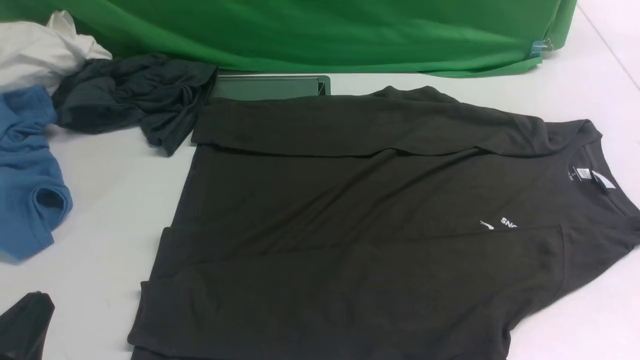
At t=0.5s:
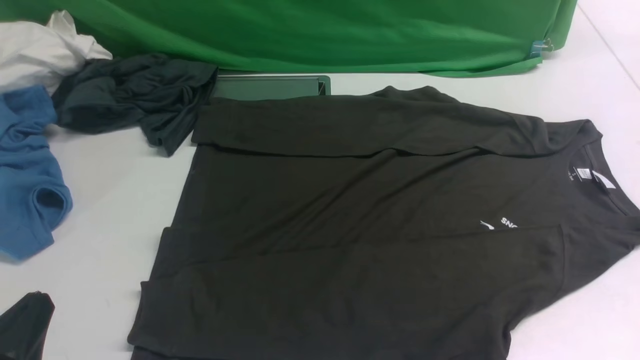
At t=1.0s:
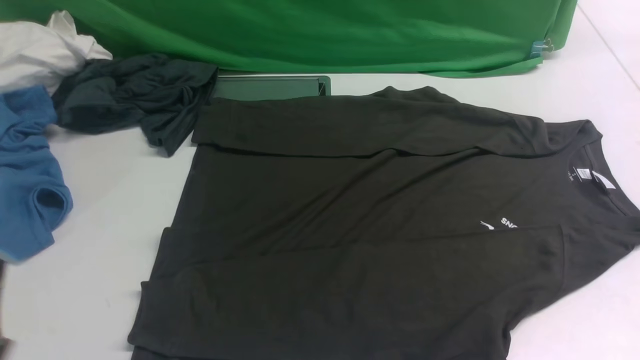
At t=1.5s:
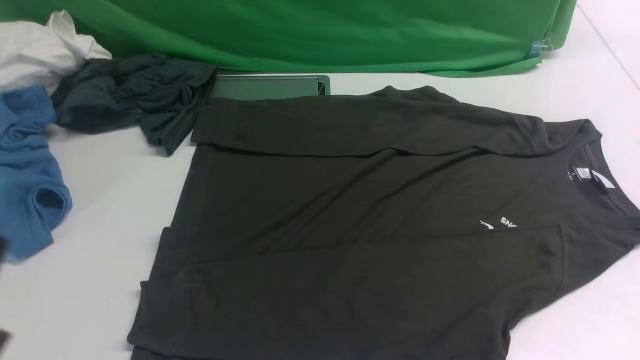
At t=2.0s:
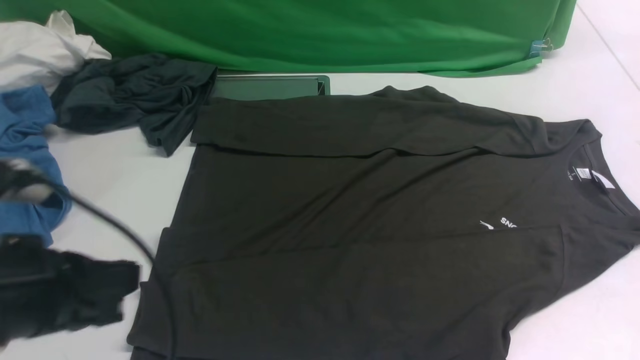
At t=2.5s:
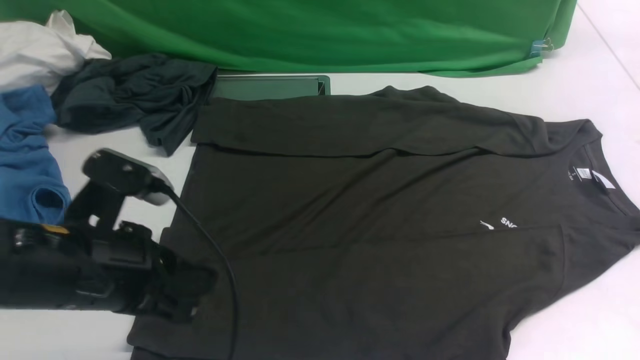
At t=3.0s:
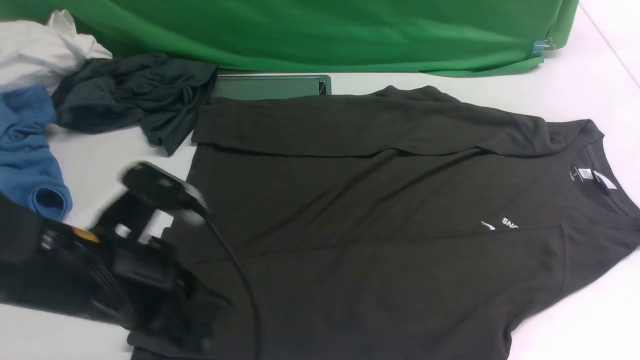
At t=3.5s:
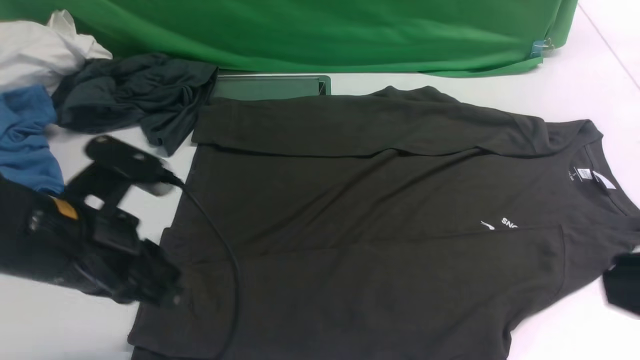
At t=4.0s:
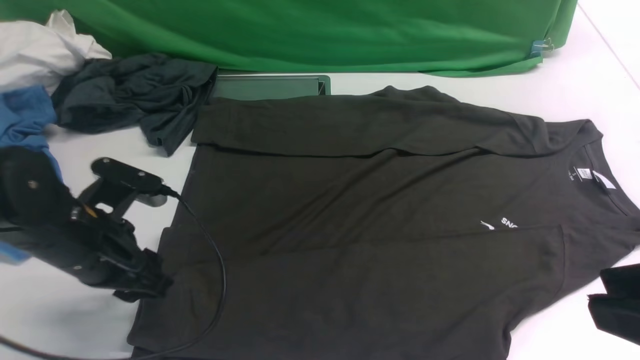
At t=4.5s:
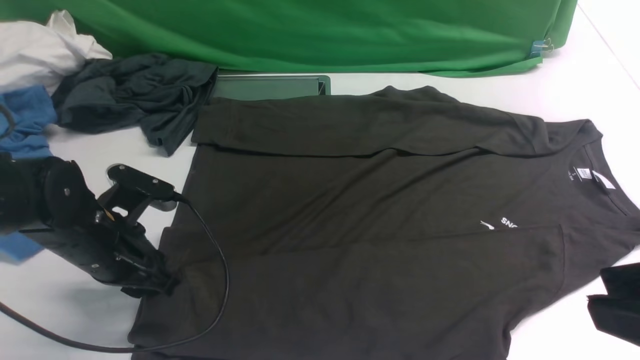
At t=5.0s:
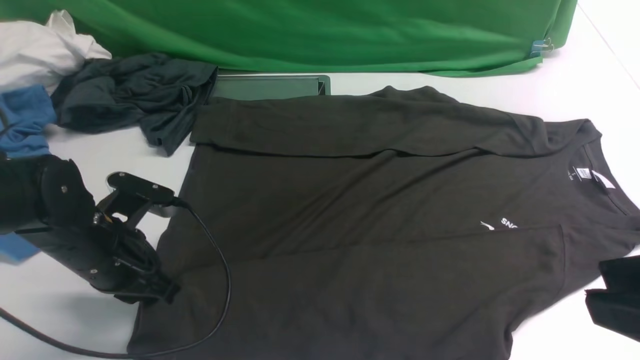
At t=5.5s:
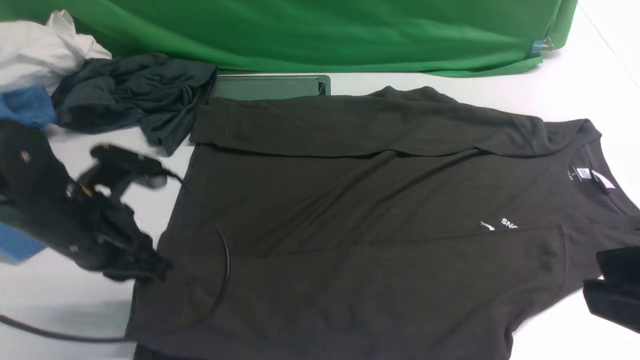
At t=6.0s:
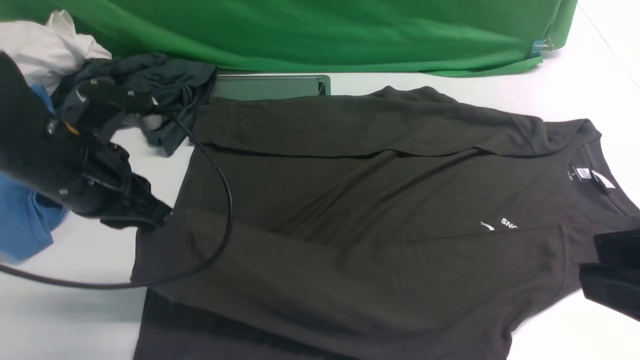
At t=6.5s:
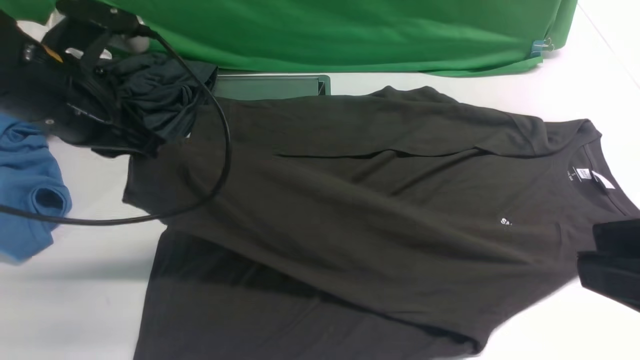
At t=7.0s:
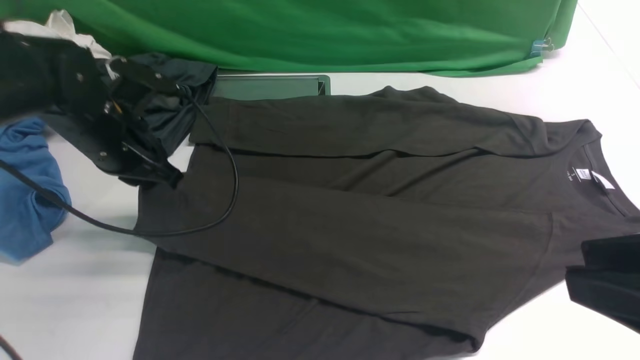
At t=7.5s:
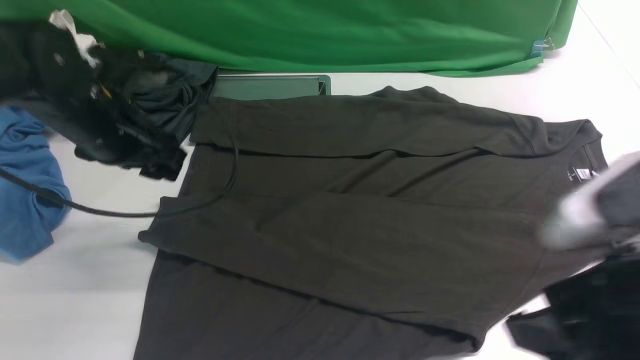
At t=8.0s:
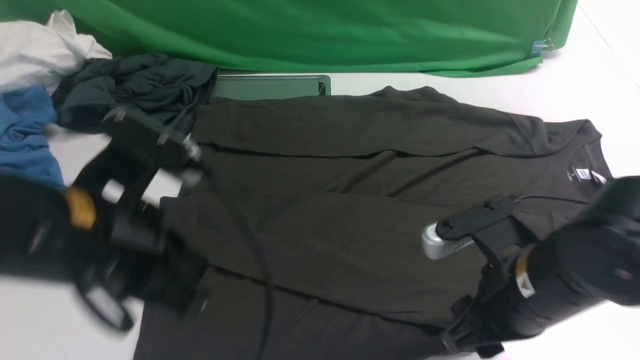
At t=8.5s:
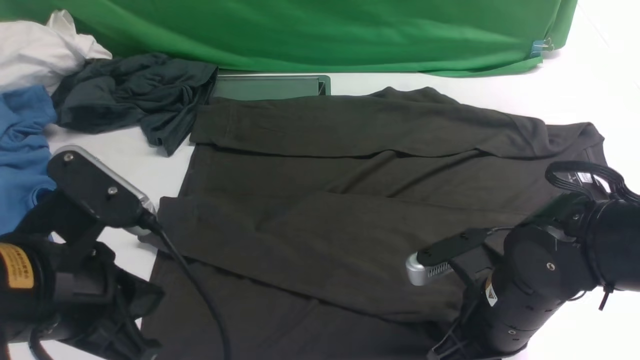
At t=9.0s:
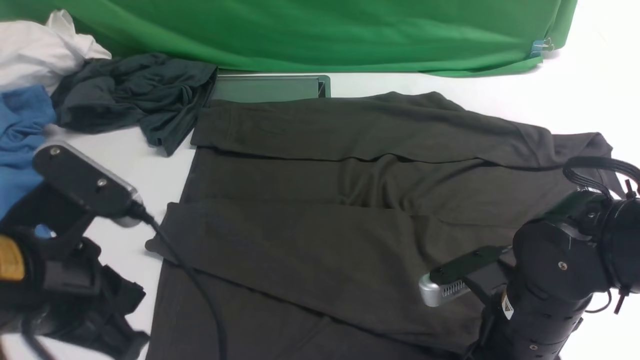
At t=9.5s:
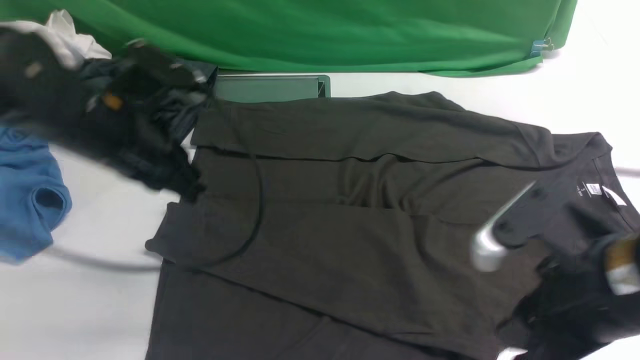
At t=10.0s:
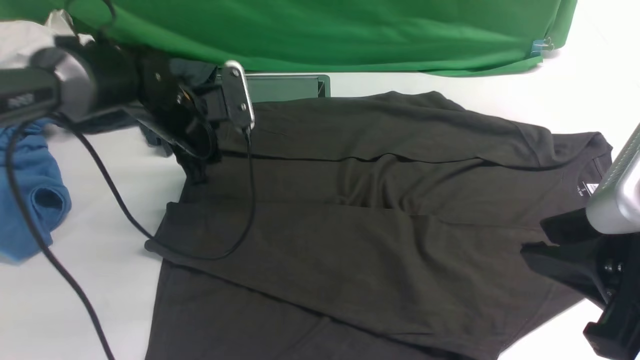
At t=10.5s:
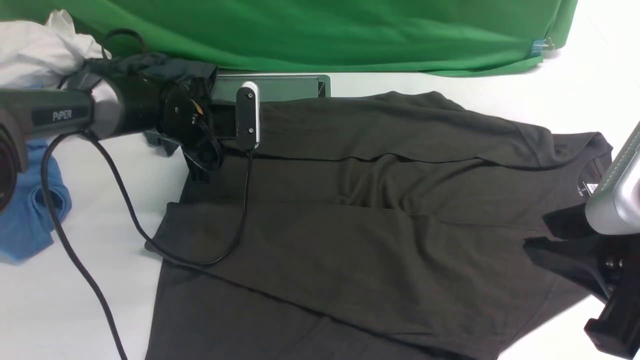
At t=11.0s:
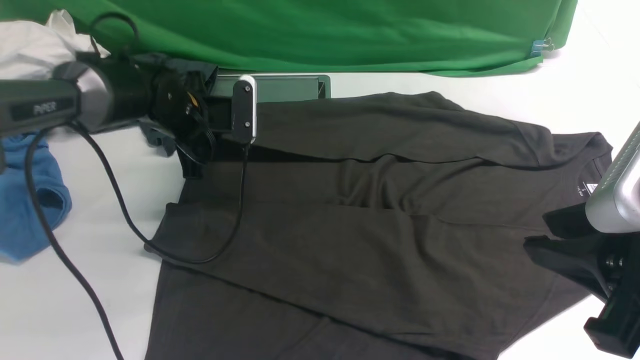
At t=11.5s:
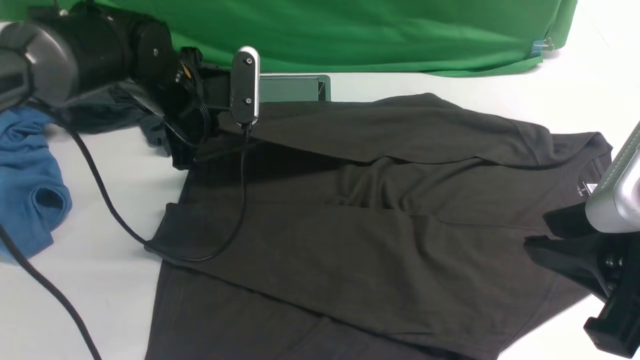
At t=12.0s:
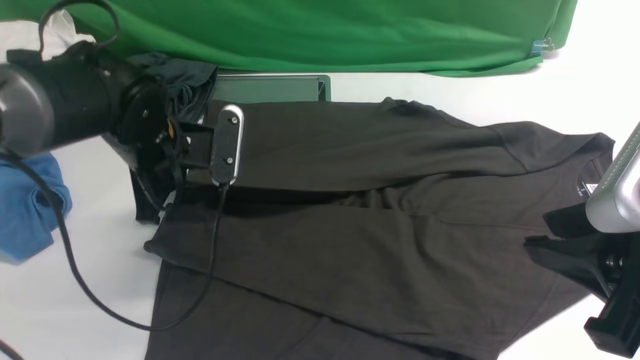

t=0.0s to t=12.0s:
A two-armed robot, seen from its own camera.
Step, t=0.0s to t=5.0s: use the left arm to clamp the cuff closest to it.
Step, t=5.5s to t=7.5s: use the left arm to drag and place the cuff at the centered position on the left edge of the fabric.
Step, t=8.0s to t=11.0s: use the left arm to clamp the cuff farthest from it.
t=0.0s to t=2.0s: The left gripper moves upward and forward, roughly 10 cm.
t=2.0s to t=4.0s: The left gripper goes approximately 15 cm forward and downward, and opens its fingers. Meanwhile the right gripper goes roughly 20 cm upward and to the left.
t=4.0s to t=6.0s: The left gripper shifts some 10 cm upward, and closes its fingers.
t=6.0s to t=8.0s: The right gripper goes some 20 cm downward, forward and to the left, while the left gripper is displaced backward and to the right by roughly 10 cm, and opens, then closes once more.
t=8.0s to t=10.0s: The left gripper moves forward and downward, some 25 cm, and opens. Meanwhile the right gripper goes about 15 cm upward, backward and to the right.
t=10.0s to t=12.0s: The left gripper shifts about 10 cm backward, and closes.

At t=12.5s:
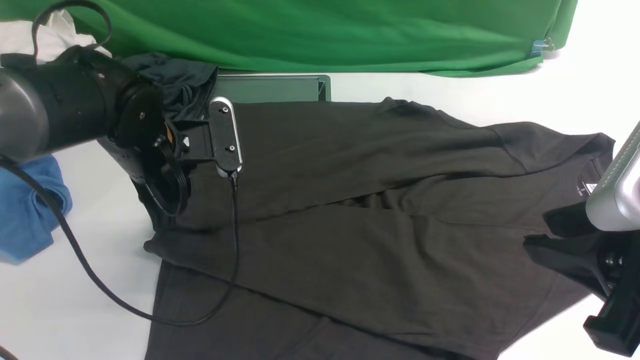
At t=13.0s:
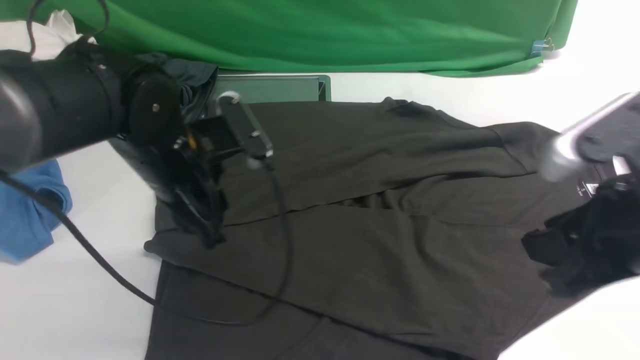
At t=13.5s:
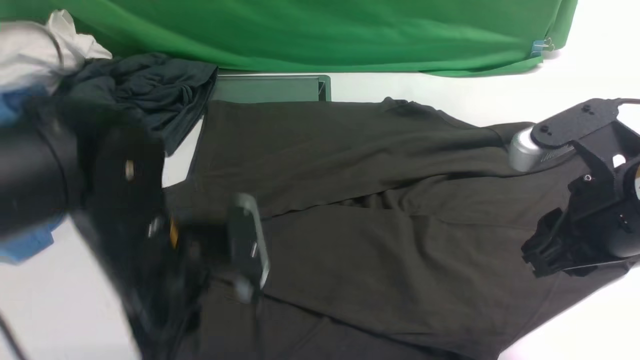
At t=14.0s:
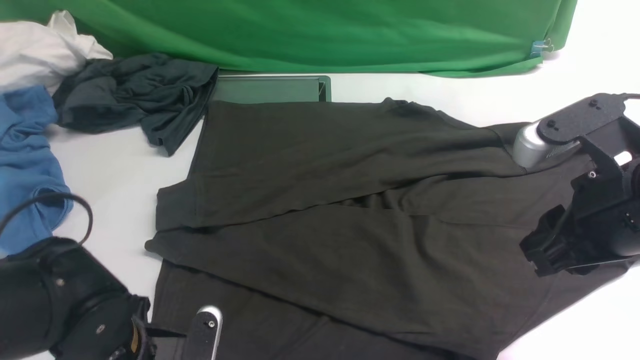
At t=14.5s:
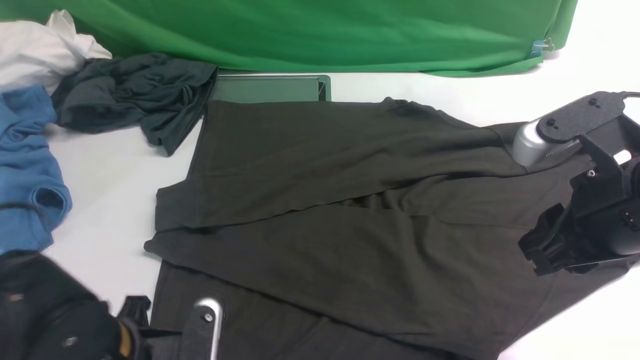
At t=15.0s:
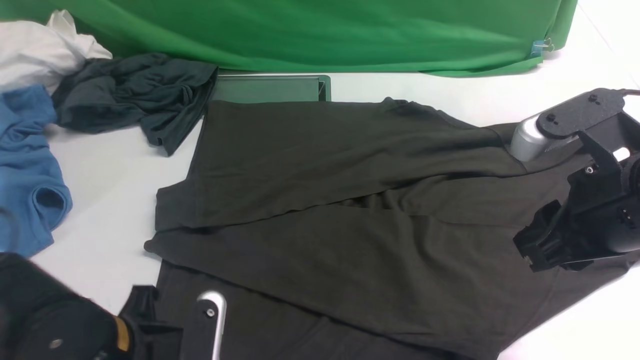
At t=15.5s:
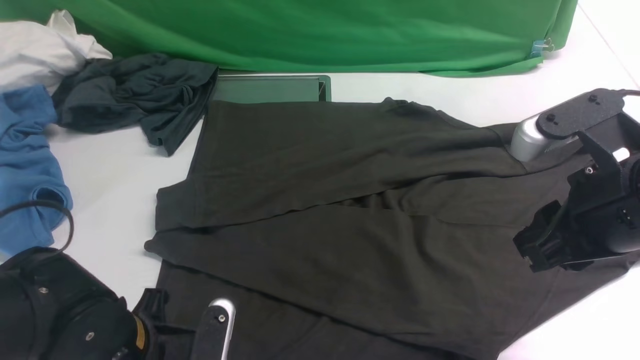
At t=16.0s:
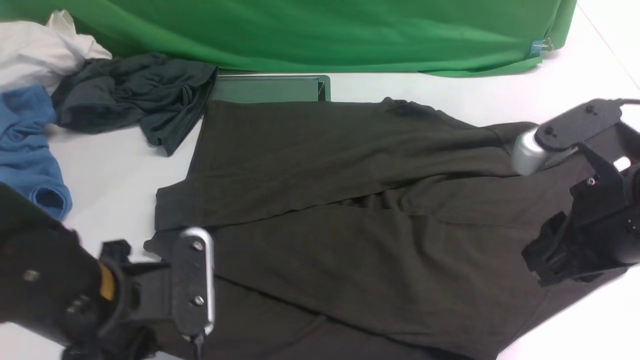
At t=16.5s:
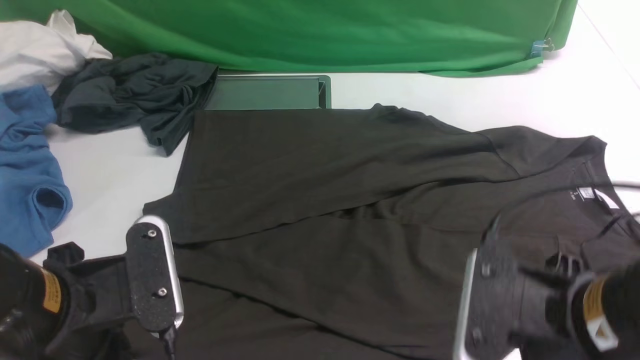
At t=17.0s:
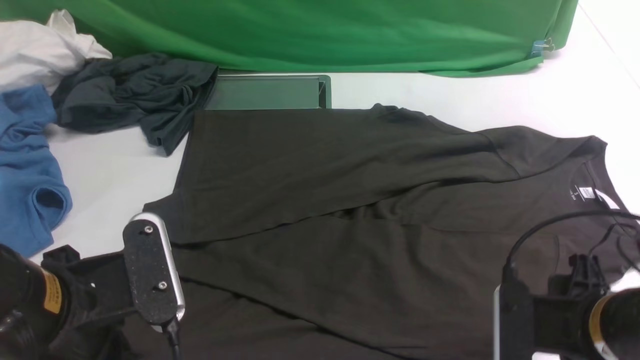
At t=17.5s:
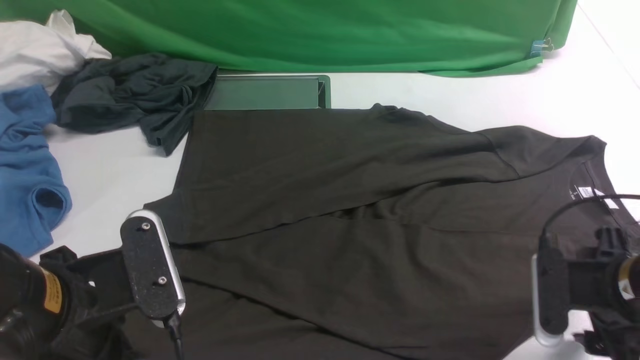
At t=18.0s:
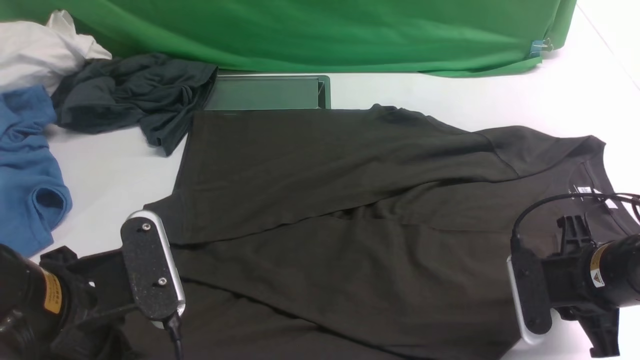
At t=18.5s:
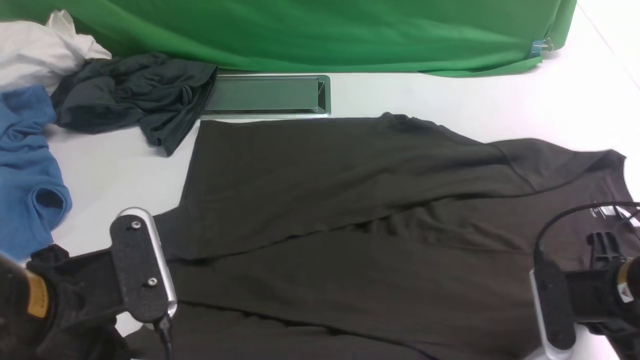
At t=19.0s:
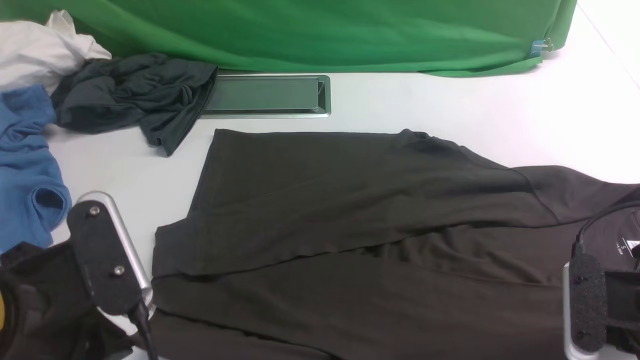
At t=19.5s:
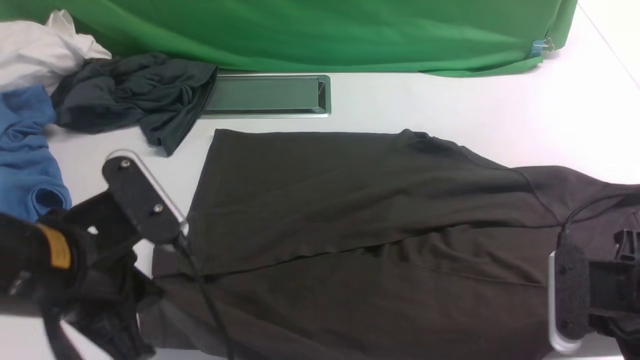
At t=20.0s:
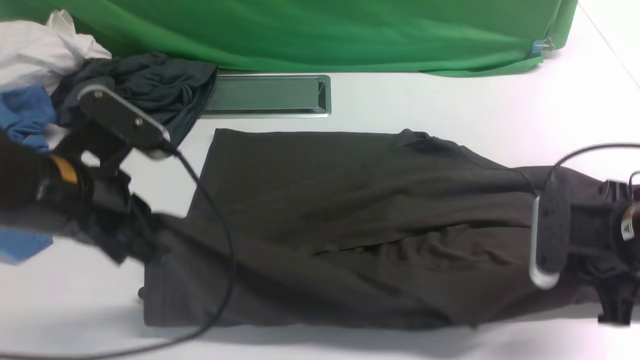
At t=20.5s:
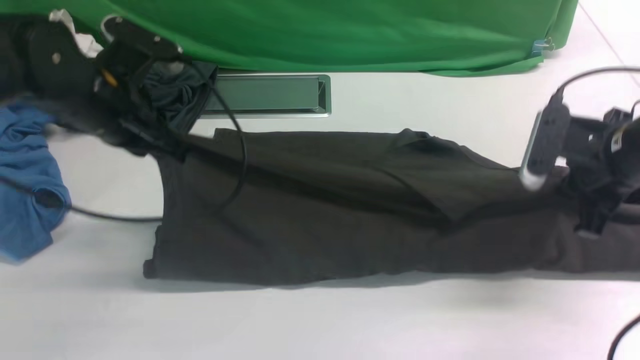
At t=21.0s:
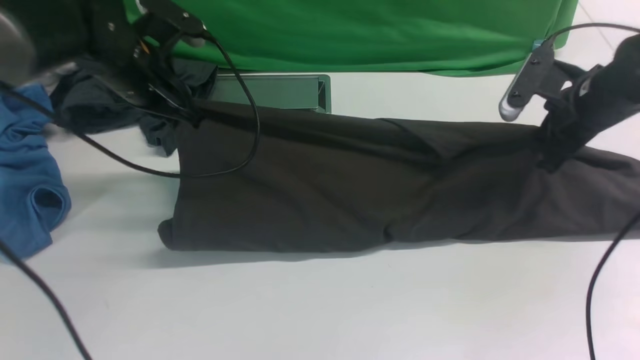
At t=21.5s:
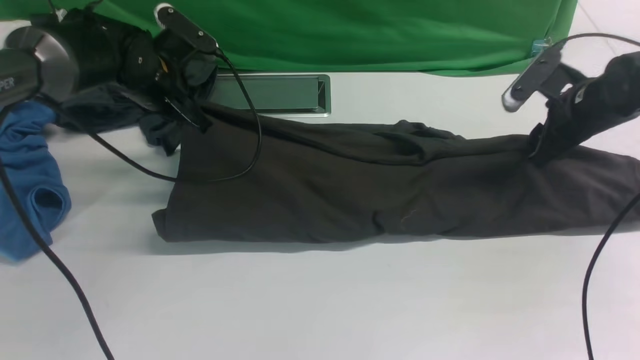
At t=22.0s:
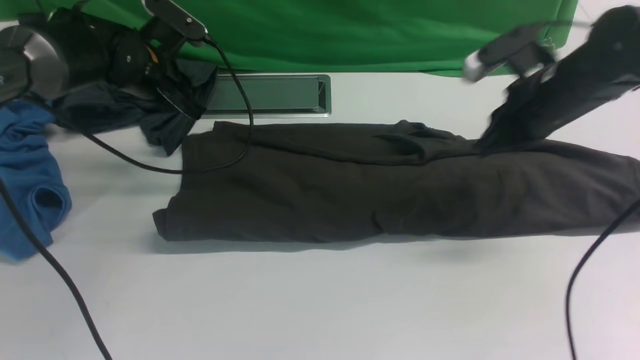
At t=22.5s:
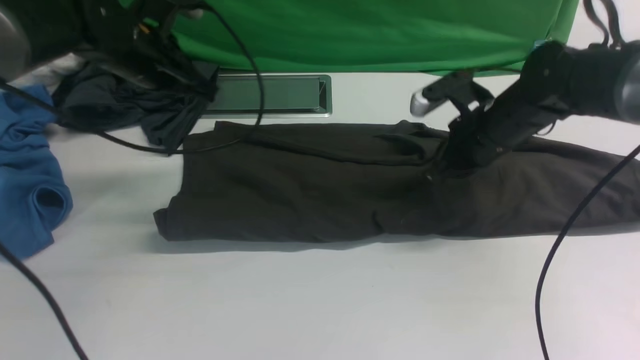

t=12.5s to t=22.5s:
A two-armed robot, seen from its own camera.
Step, t=13.5s to t=18.5s: use both arms simultaneously to clamp the lower edge of the clothing fabric.
t=12.5s to t=14.5s: The right gripper travels forward by roughly 5 cm, while the left gripper is displaced backward by some 20 cm.
t=14.5s to t=16.5s: The right gripper is displaced backward by approximately 5 cm; the left gripper is displaced upward by some 10 cm, and closes up.
t=16.5s to t=18.5s: The right gripper heads to the right, downward and forward, covering roughly 15 cm, and closes up.
t=18.5s to t=20.5s: The right gripper shifts approximately 15 cm forward and upward. The left gripper shifts approximately 20 cm forward.
t=20.5s to t=22.5s: The left gripper is displaced forward by some 5 cm, and opens and closes again; the right gripper travels to the left and forward by approximately 15 cm, and opens, then closes again.
